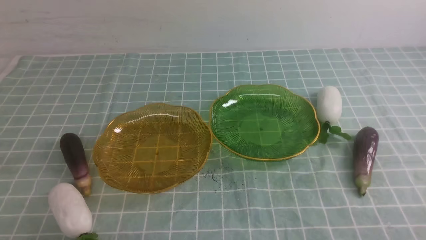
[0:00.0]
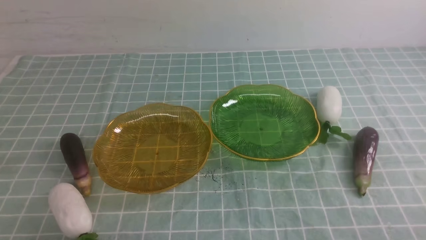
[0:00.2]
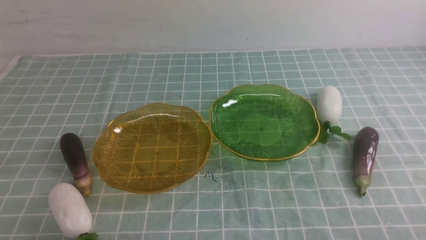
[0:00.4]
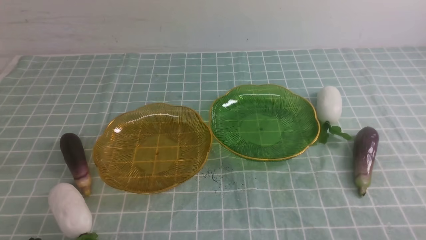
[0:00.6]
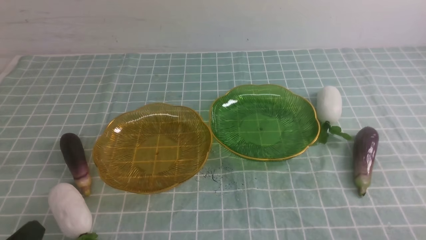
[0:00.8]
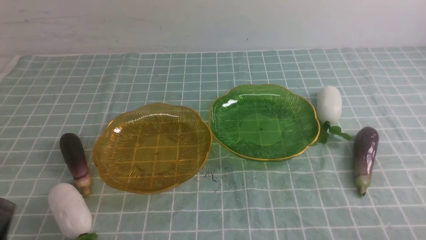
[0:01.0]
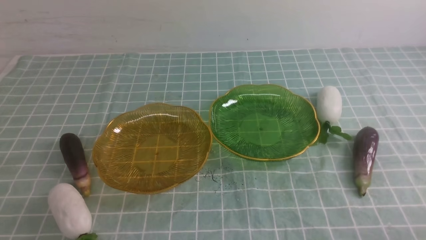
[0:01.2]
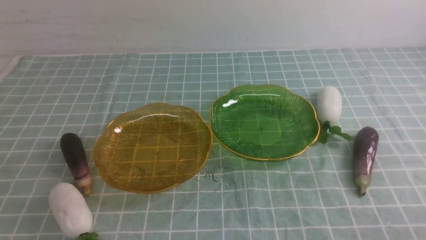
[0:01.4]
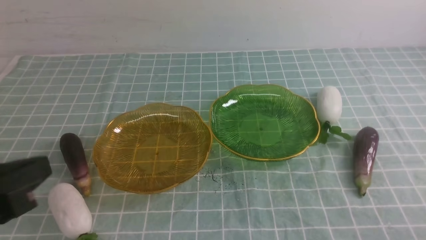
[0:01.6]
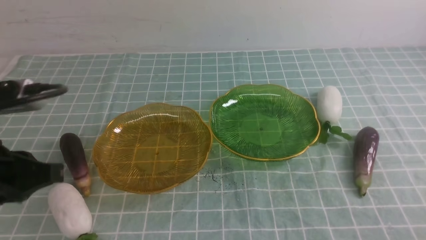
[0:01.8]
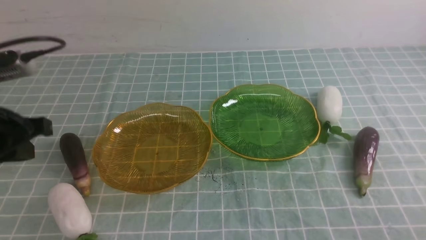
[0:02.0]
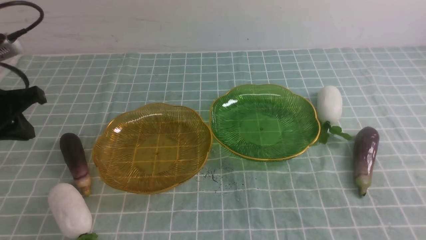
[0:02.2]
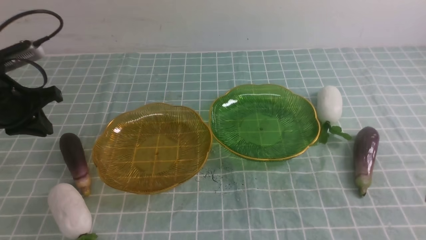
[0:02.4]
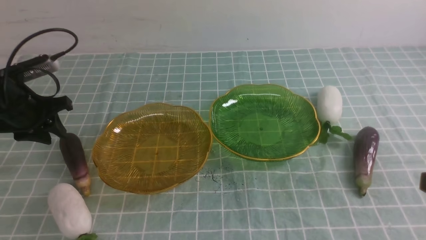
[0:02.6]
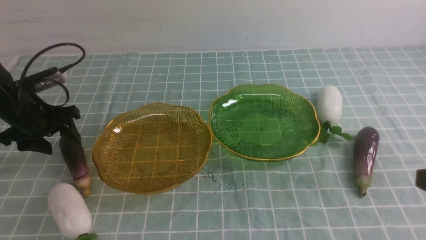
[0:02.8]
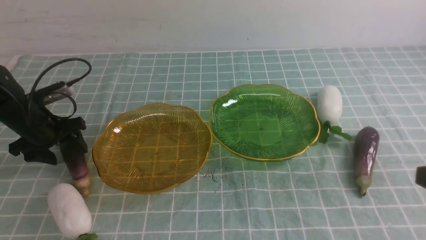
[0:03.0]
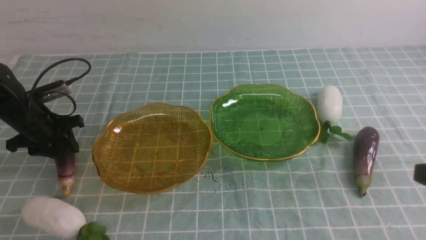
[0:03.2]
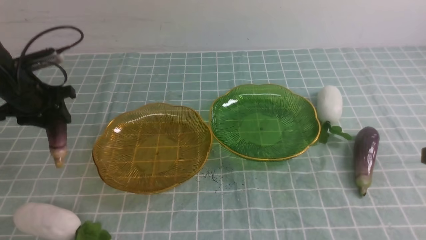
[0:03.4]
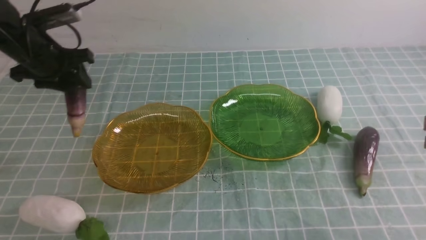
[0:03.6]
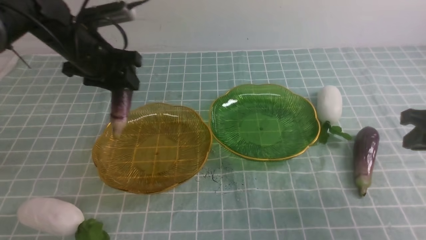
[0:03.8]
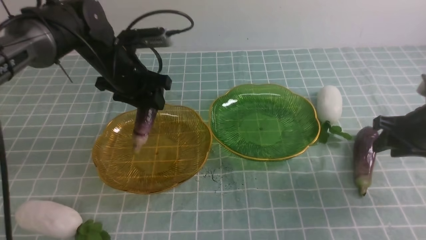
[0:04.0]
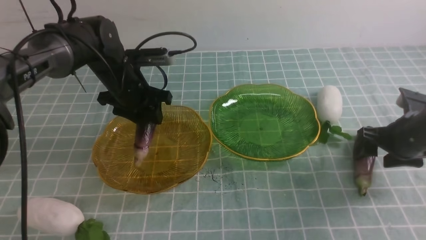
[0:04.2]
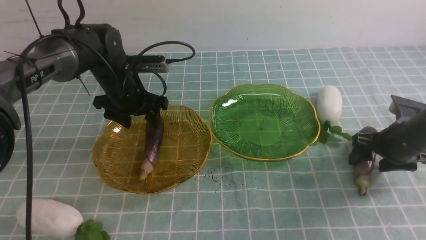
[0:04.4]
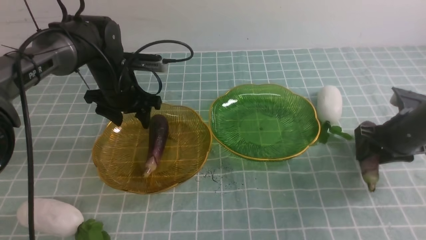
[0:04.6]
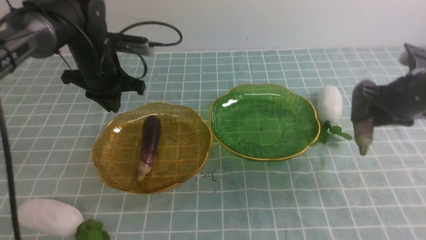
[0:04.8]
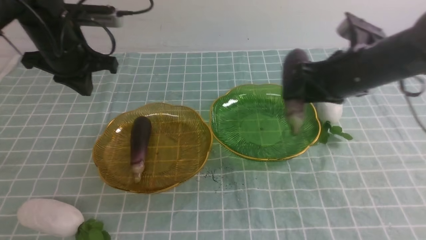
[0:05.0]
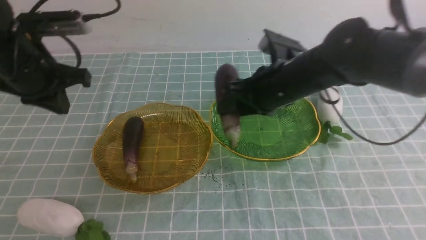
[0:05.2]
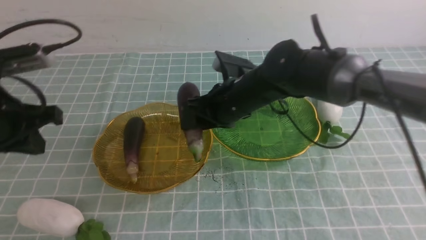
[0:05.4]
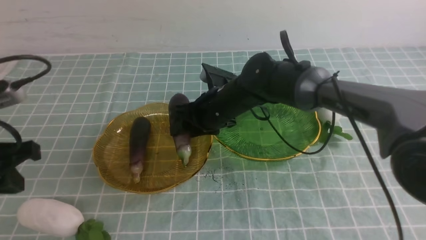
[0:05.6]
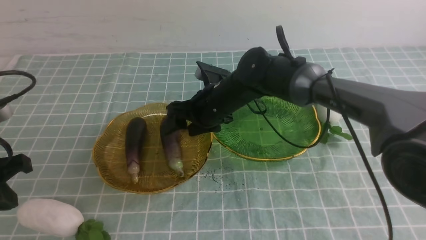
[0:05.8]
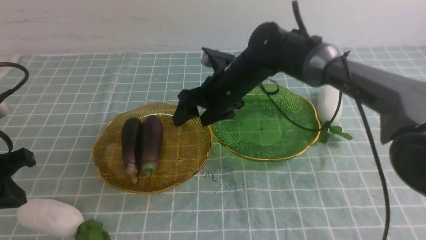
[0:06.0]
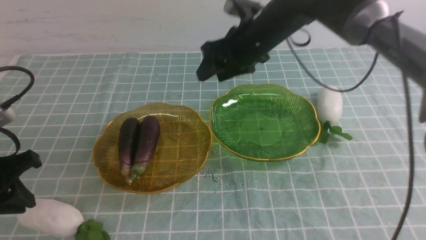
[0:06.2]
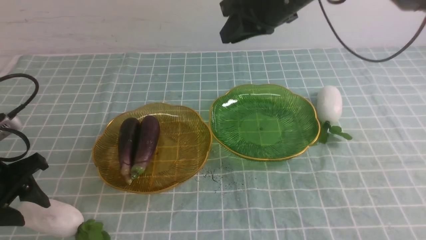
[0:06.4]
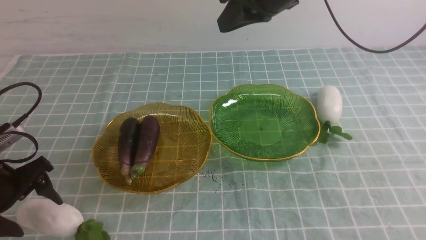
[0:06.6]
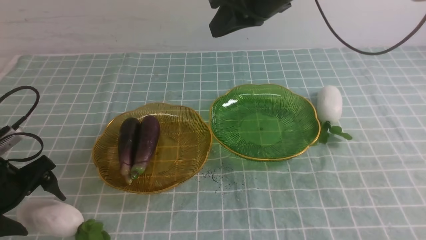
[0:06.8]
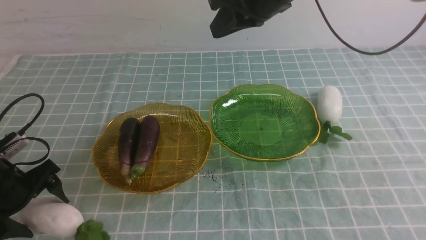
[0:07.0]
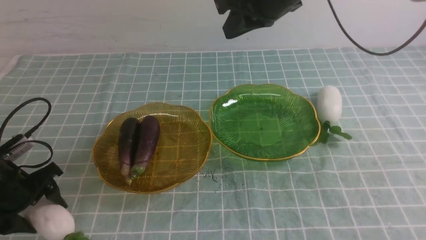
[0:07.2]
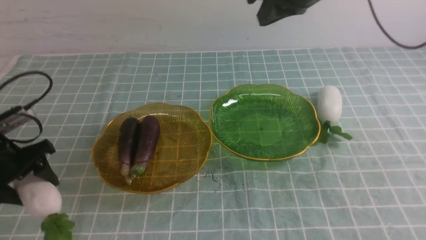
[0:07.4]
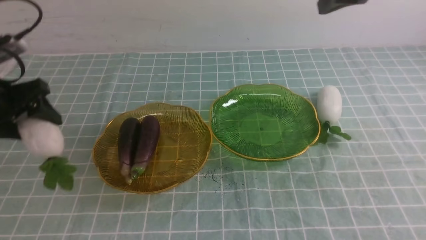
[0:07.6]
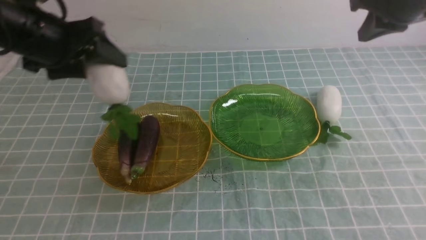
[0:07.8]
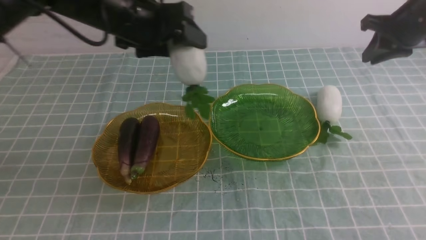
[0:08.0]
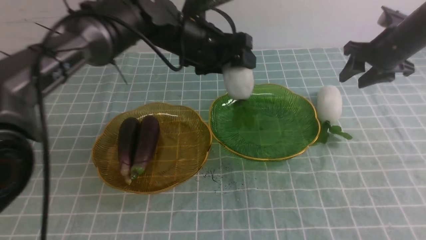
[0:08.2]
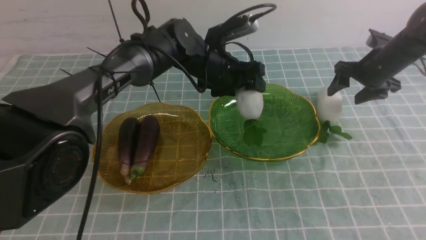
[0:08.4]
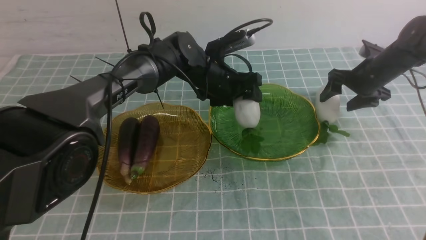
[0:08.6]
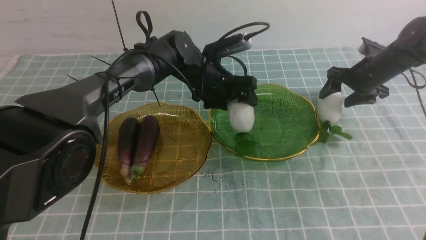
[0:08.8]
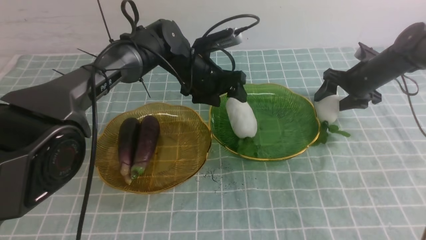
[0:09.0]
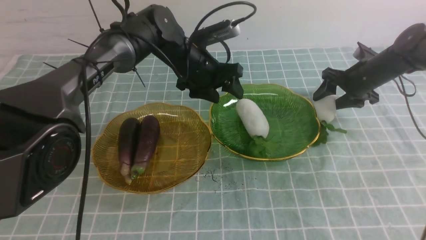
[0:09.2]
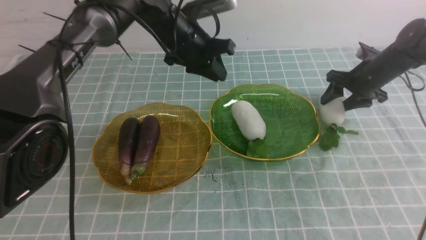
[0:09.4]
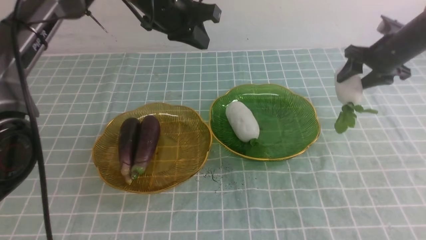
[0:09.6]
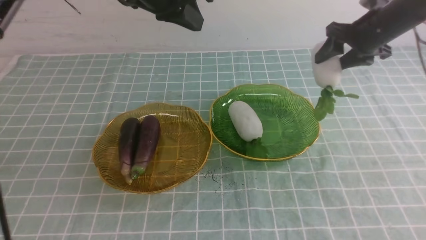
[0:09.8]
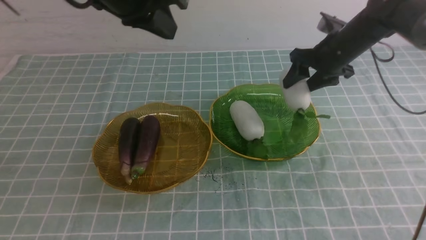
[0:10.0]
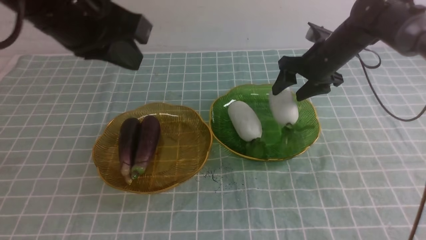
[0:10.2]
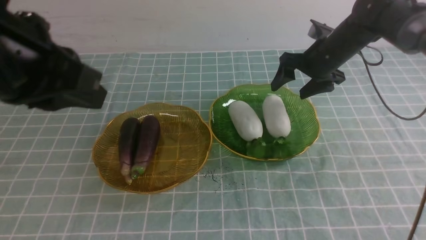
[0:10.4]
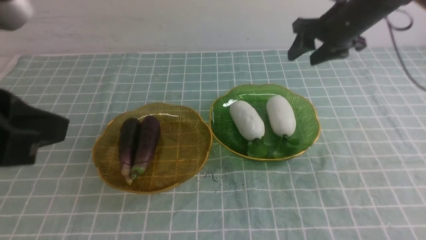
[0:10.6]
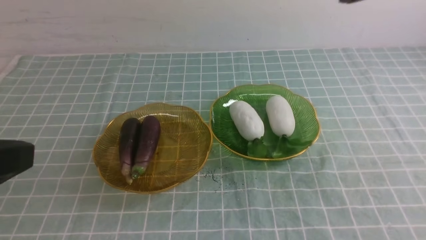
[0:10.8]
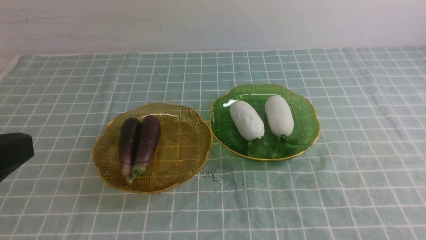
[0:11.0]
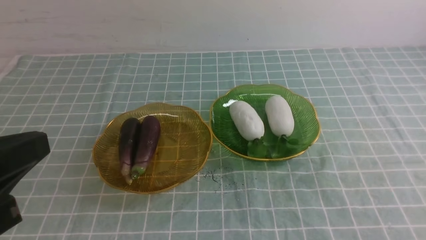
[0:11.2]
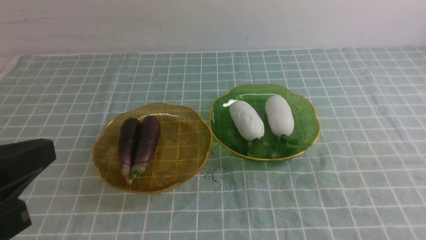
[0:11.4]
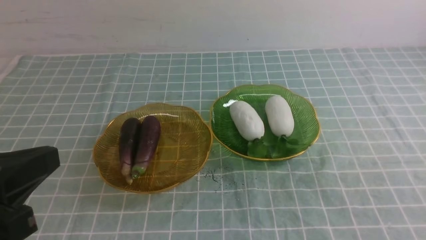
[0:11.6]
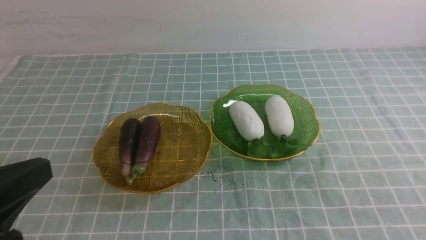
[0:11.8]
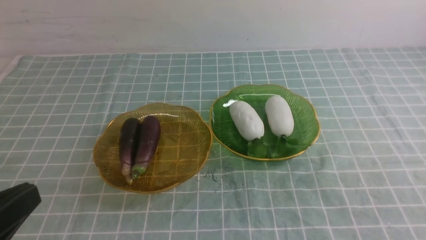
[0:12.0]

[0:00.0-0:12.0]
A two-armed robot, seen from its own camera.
Step, 0:00.0 to 0:04.4: use the left arm to grab an eggplant and put it into the left plate.
Step, 0:04.6 to 0:05.8: use the right arm to grab an eggplant and put it into the left plate.
Step, 0:06.0 to 0:09.0: use the left arm to grab a radish and put it into the right plate.
Step, 0:09.2 to 0:10.2: use the right arm to grab a radish and put it into the right plate.
0:00.0 to 0:01.6: The left gripper travels upward and forward by roughly 20 cm.
0:01.6 to 0:03.0: The left gripper goes some 30 cm forward and downward, and opens up.
0:03.0 to 0:04.4: The left gripper goes about 15 cm to the right, while the right gripper goes approximately 25 cm forward and downward, and opens its fingers.
0:04.4 to 0:06.0: The right gripper is displaced to the left by roughly 25 cm. The left gripper moves backward and to the left, approximately 25 cm, and closes.
0:06.0 to 0:07.6: The right gripper heads to the right and upward, covering some 25 cm, and closes its fingers, while the left gripper heads forward, upward and to the right, covering approximately 15 cm, and opens up.
0:07.6 to 0:09.0: The right gripper travels downward and forward by approximately 25 cm, and opens its fingers. Meanwhile the left gripper moves to the right, forward and downward, roughly 25 cm.
0:09.0 to 0:10.4: The left gripper travels backward, upward and to the left by some 40 cm, and closes up. The right gripper heads upward and to the left, covering approximately 15 cm.
0:10.4 to 0:12.0: The right gripper travels backward by roughly 50 cm, and closes. The left gripper is displaced backward and downward by approximately 20 cm.

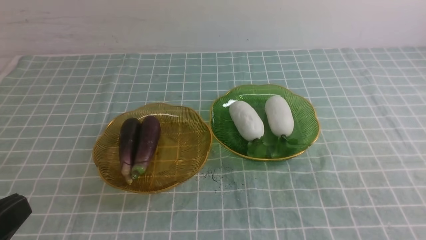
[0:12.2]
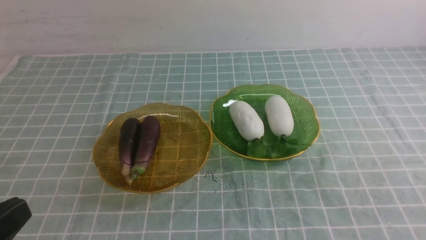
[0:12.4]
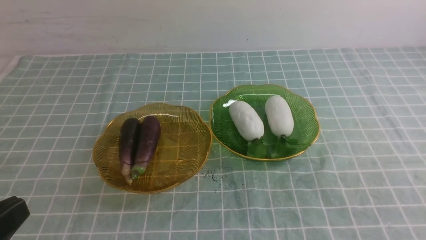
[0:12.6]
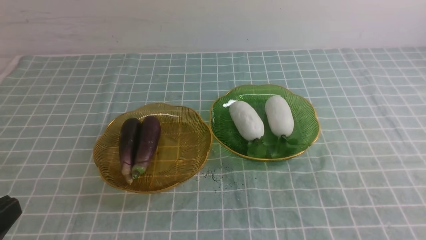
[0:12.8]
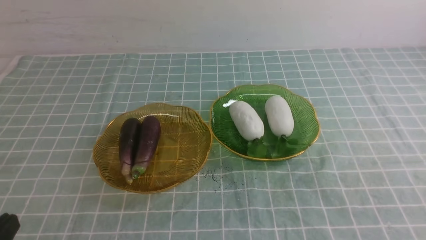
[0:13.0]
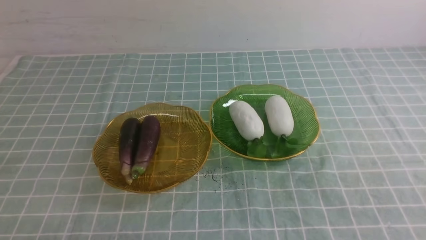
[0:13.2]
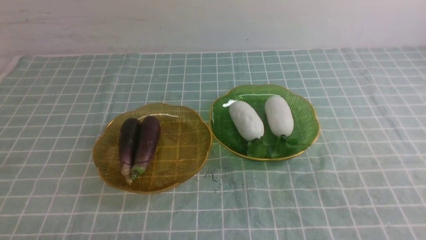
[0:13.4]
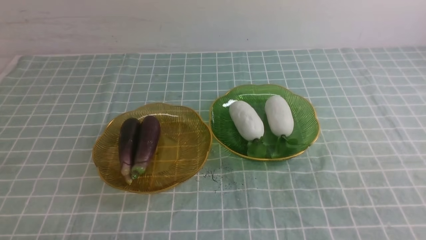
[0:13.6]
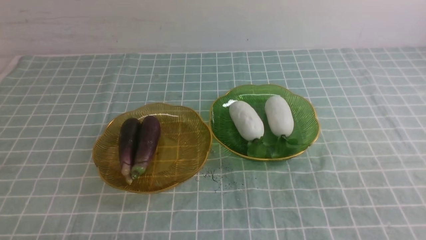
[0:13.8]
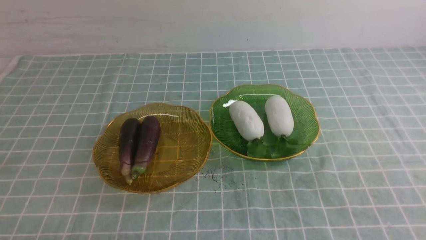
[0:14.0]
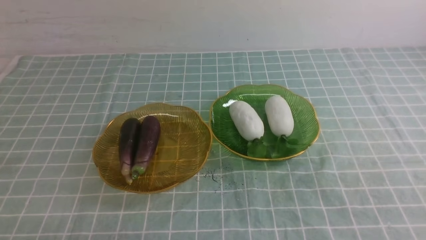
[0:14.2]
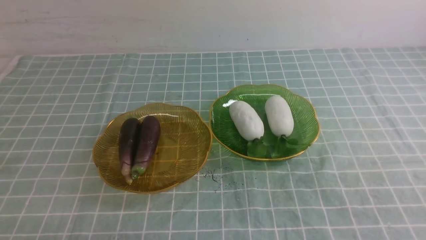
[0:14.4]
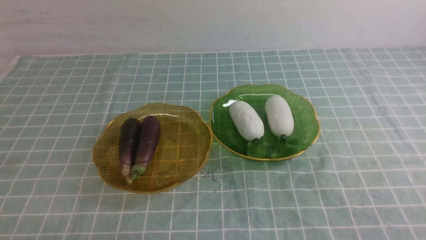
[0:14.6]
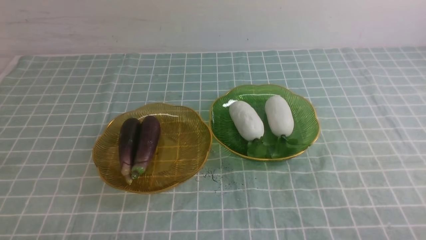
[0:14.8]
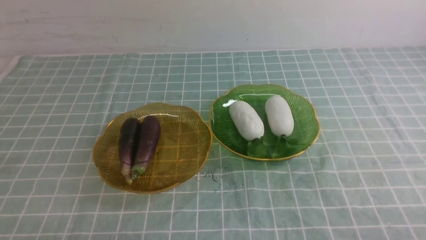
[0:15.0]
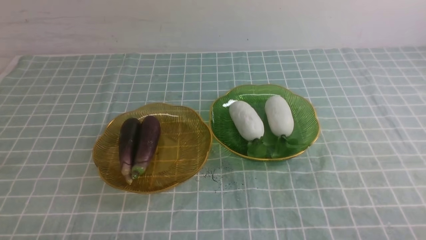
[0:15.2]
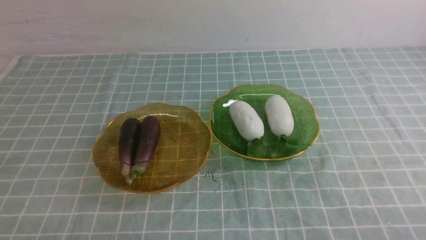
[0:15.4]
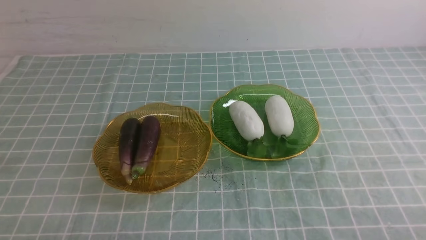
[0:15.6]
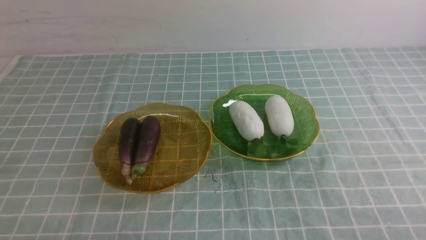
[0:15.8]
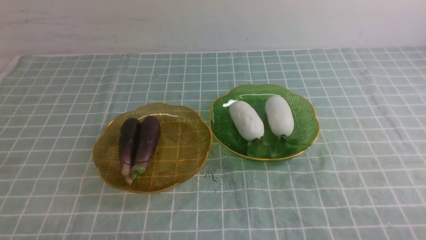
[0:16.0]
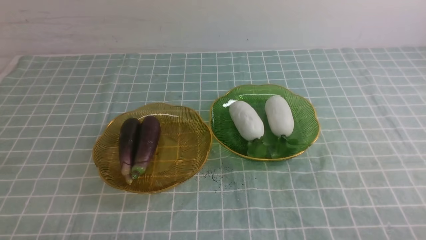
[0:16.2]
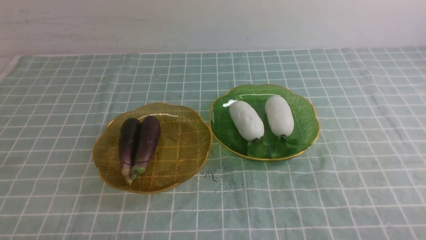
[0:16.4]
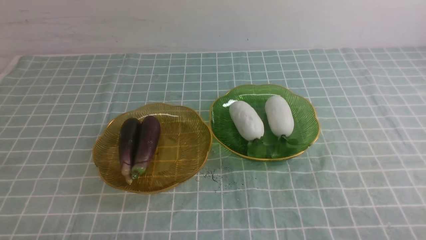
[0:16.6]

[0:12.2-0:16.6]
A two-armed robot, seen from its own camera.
0:12.2 to 0:13.6: The left gripper heads downward, covering about 15 cm.
0:15.2 to 0:16.6: Both grippers stay about where they are.
